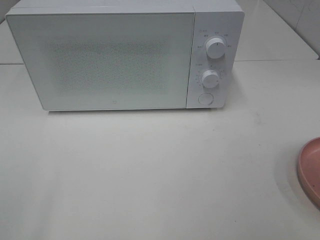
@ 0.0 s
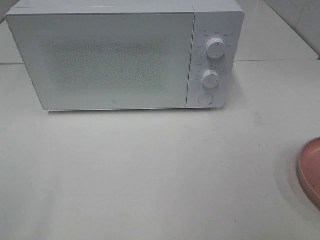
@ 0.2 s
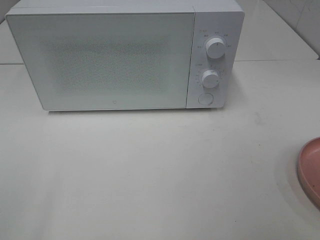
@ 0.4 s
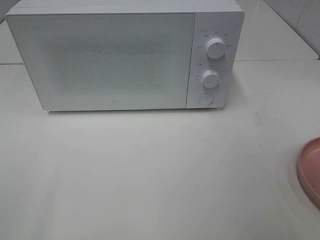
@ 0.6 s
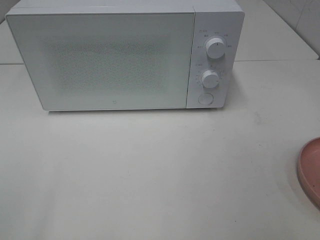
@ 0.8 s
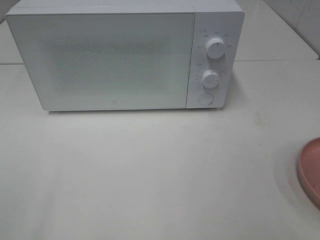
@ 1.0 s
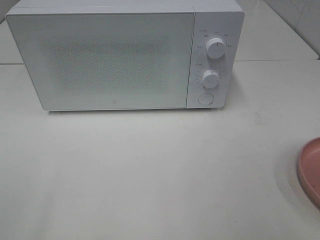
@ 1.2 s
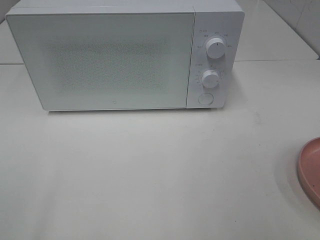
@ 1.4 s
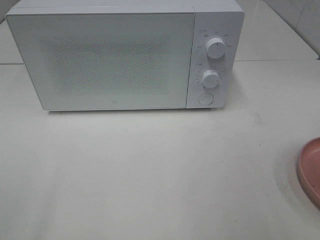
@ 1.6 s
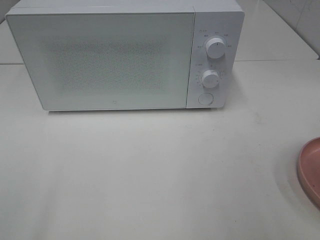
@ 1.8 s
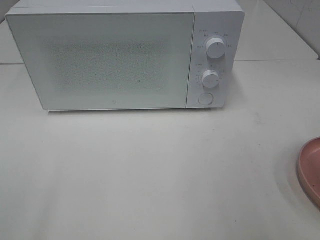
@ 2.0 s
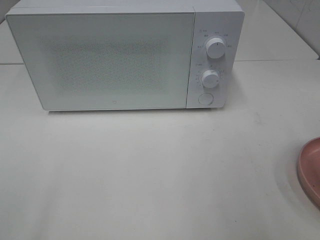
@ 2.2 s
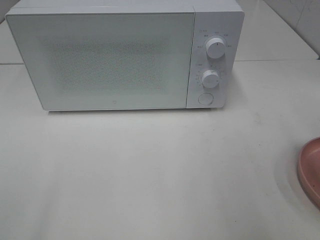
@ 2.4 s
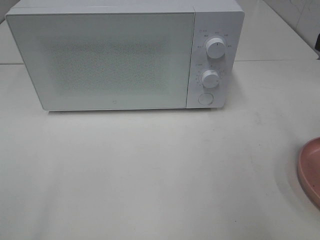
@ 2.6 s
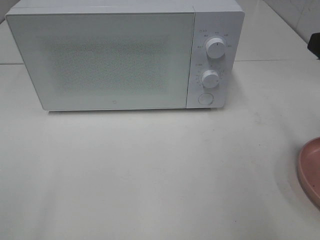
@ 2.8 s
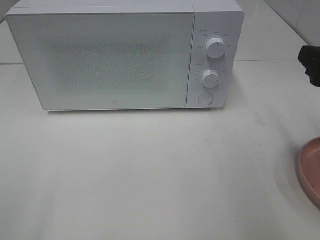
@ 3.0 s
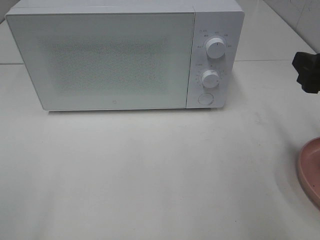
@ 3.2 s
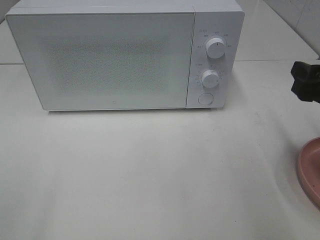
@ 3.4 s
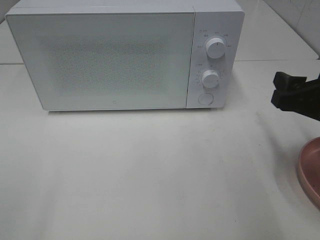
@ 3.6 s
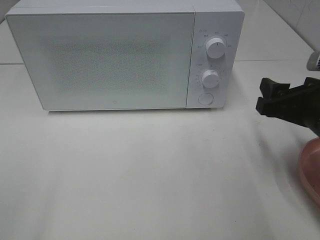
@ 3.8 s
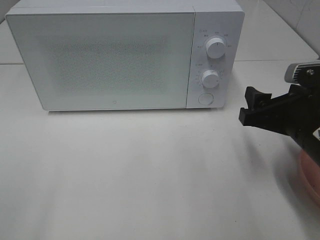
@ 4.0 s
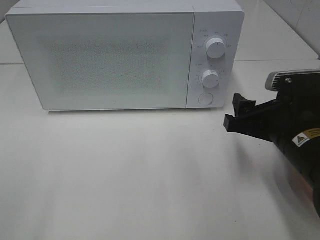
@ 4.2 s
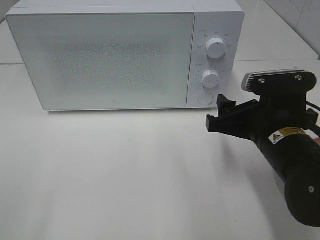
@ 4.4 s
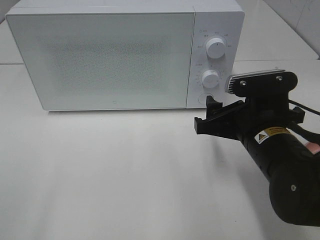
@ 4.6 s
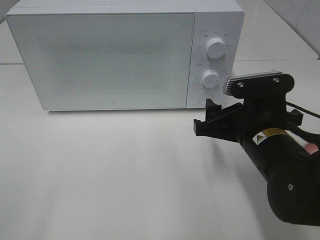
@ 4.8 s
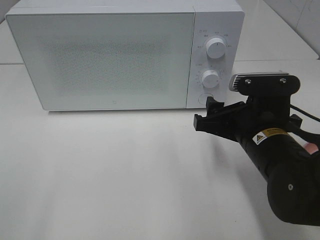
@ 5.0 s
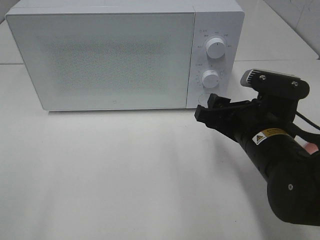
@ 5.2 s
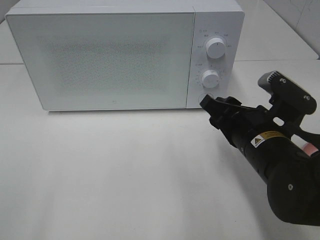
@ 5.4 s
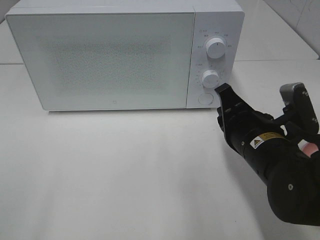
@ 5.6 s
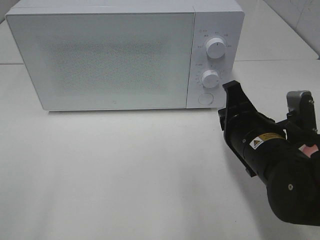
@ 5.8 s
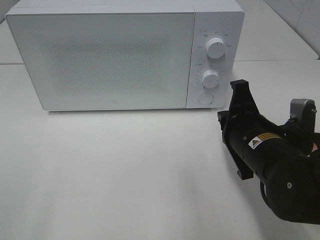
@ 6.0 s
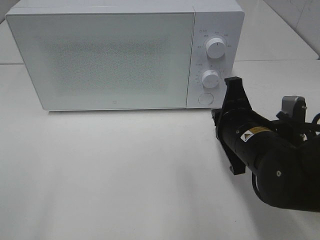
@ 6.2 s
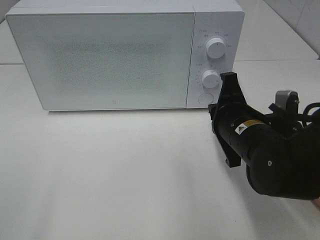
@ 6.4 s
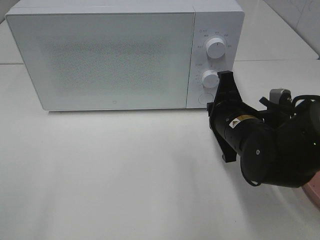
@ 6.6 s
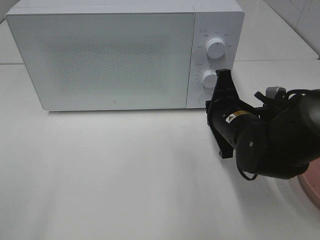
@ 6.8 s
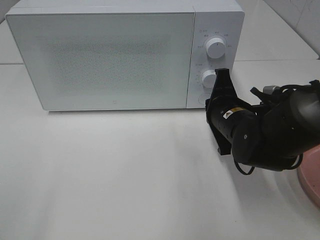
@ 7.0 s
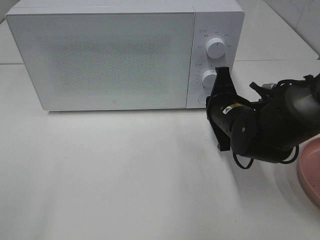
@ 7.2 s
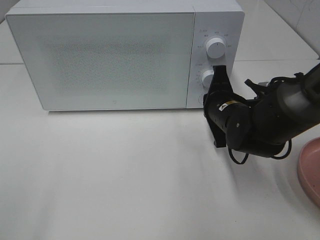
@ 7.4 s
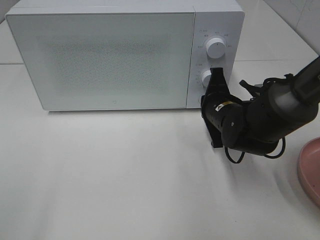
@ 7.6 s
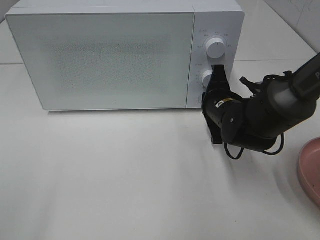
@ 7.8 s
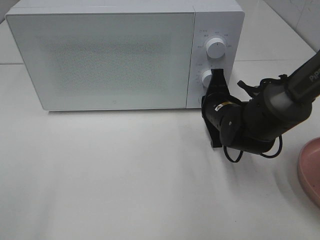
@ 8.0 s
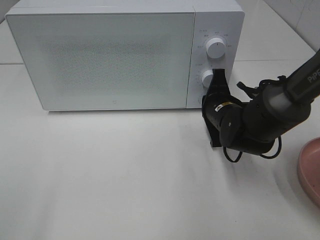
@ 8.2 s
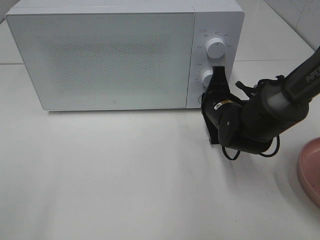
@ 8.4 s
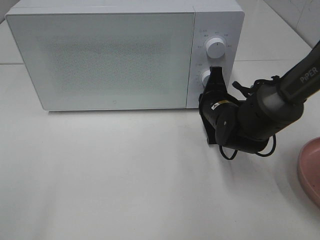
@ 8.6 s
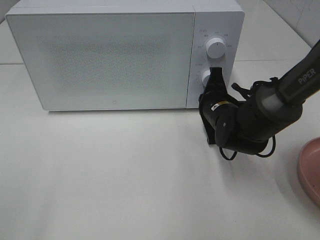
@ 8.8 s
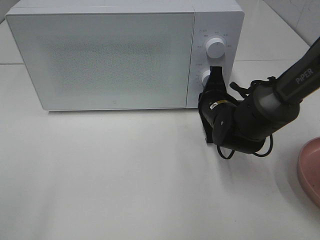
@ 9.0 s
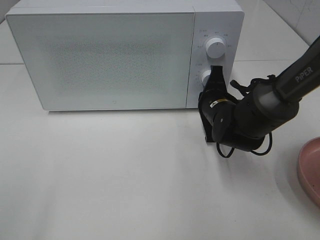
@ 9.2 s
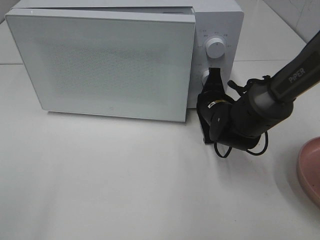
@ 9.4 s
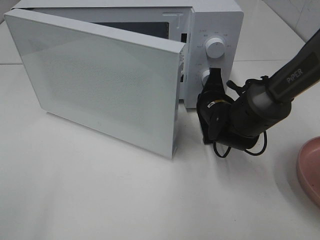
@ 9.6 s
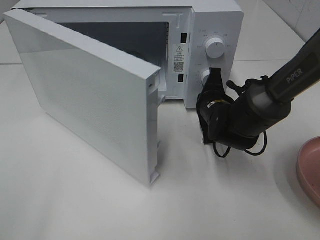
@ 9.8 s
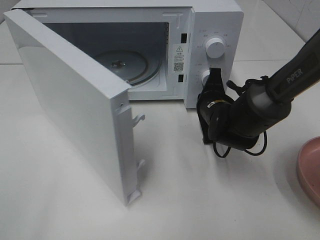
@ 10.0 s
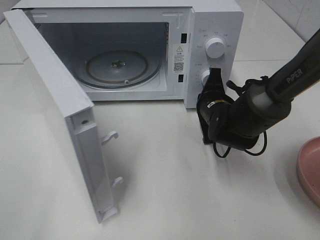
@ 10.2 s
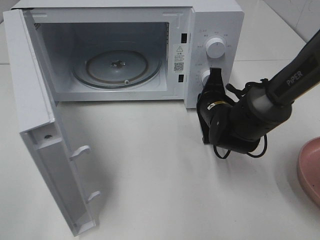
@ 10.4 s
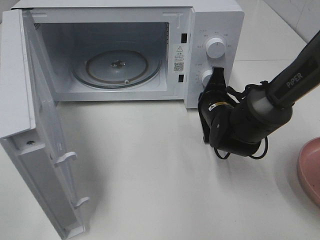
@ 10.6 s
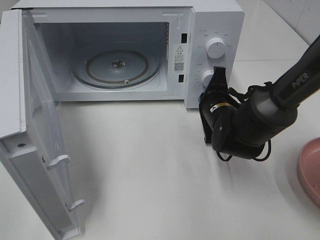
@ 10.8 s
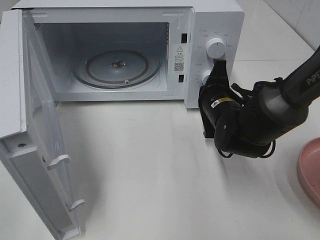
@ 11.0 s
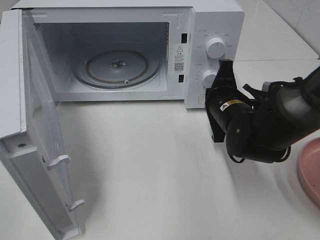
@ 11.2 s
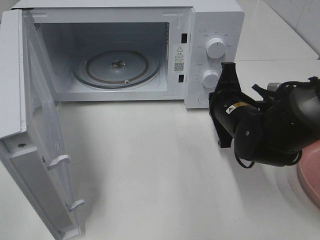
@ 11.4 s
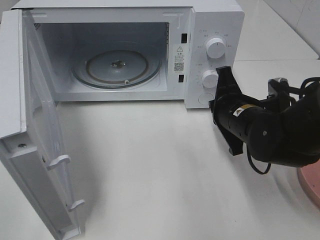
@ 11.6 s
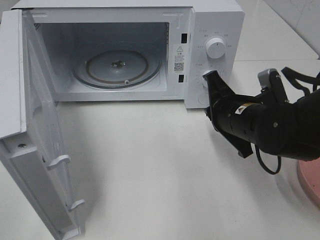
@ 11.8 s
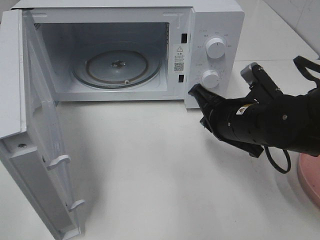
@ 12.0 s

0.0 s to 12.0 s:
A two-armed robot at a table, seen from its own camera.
Task of the whole recording: Heat the burger.
Step, 0.0 to 10.8 s: Right hand: press the switch.
1.6 to 3.0 s: The right gripper goes approximately 15 cm forward and downward.
3.0 to 4.4 s: The right gripper moves to the left and downward, some 15 cm.
4.4 to 6.0 s: The right gripper closes up.
6.0 to 7.6 s: The right gripper goes approximately 10 cm forward.
7.6 to 9.0 s: The grippers make only small movements.
10.4 to 12.0 s: The right gripper travels backward and upward by roughly 10 cm.

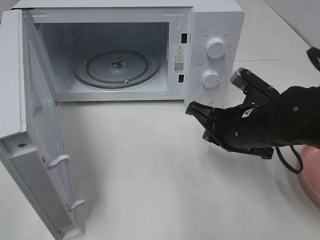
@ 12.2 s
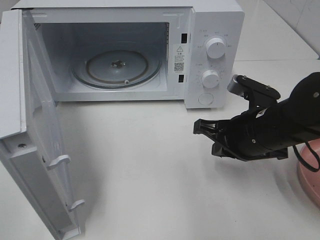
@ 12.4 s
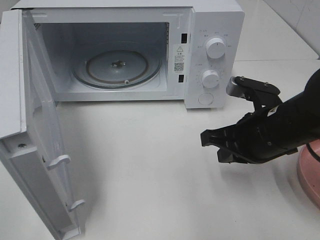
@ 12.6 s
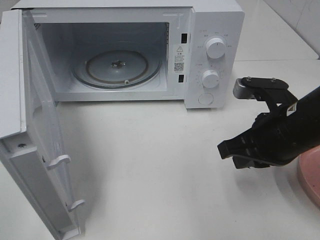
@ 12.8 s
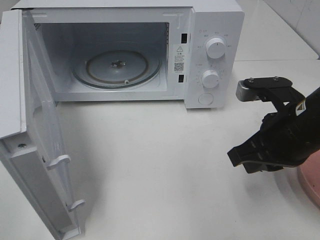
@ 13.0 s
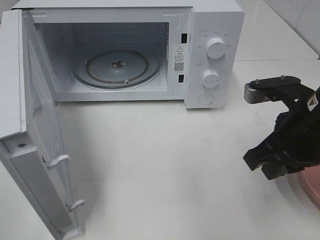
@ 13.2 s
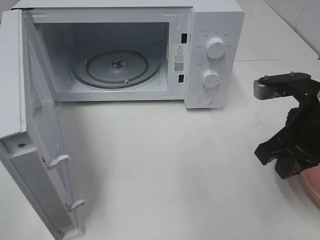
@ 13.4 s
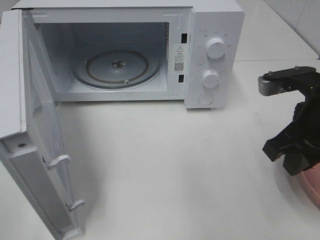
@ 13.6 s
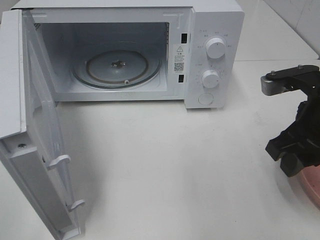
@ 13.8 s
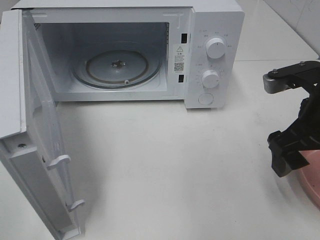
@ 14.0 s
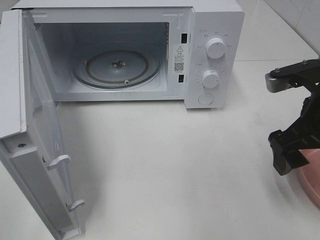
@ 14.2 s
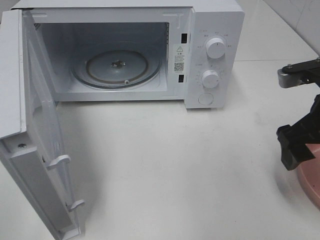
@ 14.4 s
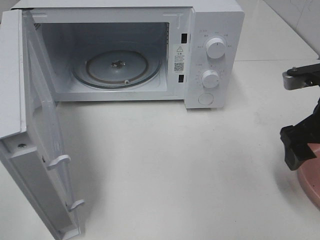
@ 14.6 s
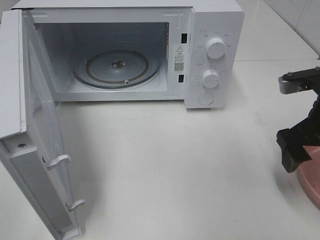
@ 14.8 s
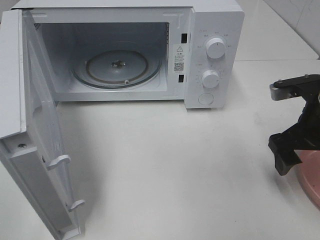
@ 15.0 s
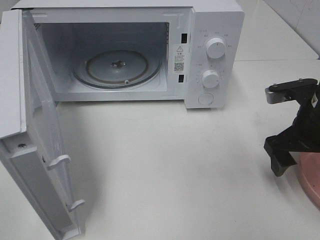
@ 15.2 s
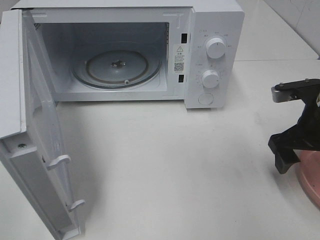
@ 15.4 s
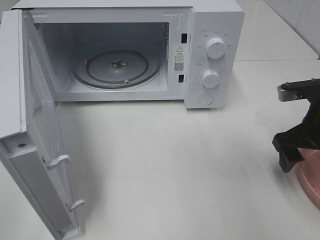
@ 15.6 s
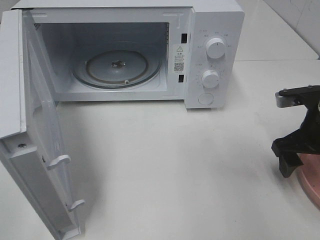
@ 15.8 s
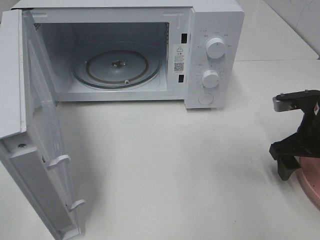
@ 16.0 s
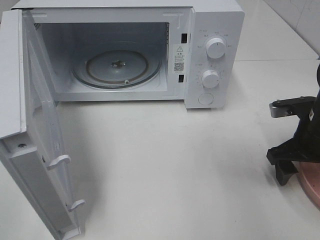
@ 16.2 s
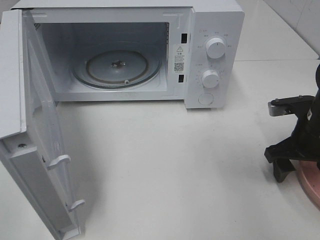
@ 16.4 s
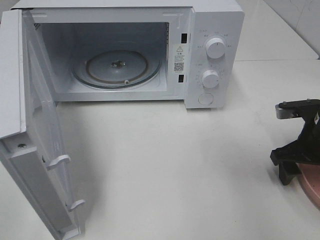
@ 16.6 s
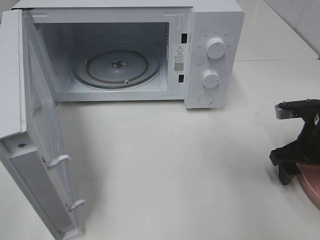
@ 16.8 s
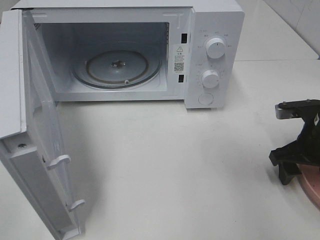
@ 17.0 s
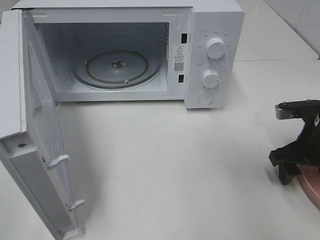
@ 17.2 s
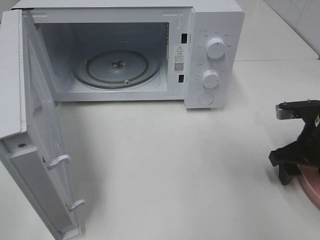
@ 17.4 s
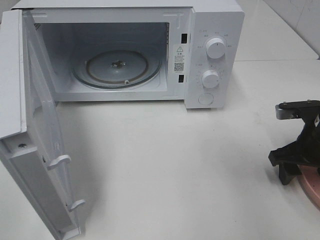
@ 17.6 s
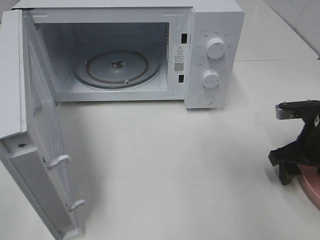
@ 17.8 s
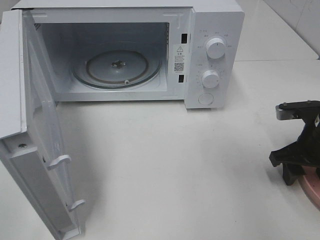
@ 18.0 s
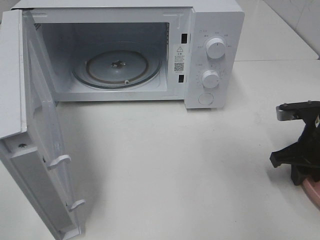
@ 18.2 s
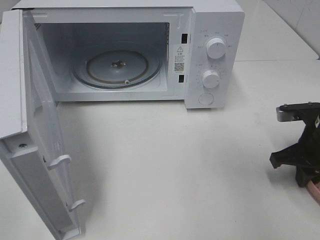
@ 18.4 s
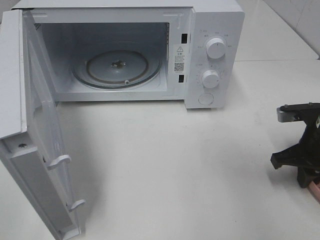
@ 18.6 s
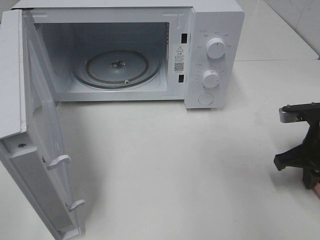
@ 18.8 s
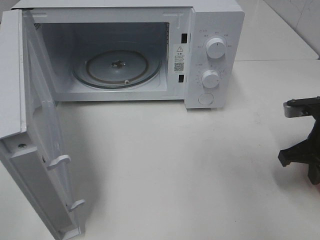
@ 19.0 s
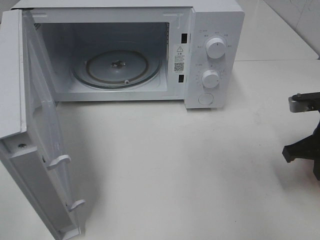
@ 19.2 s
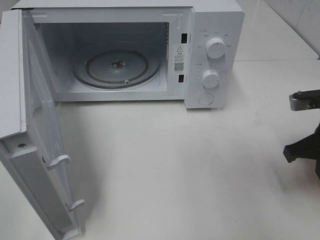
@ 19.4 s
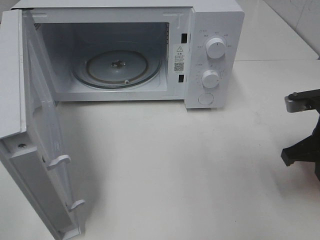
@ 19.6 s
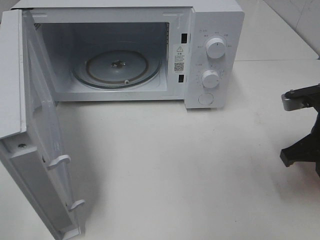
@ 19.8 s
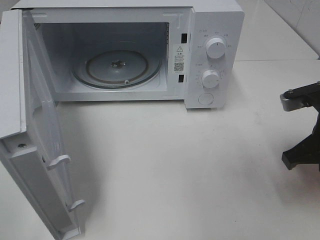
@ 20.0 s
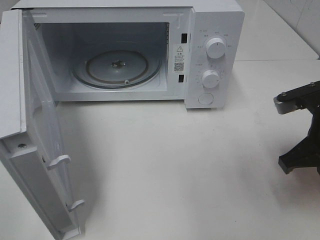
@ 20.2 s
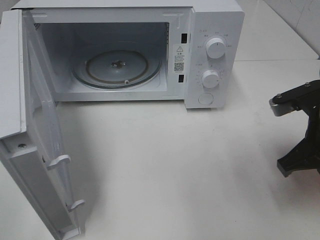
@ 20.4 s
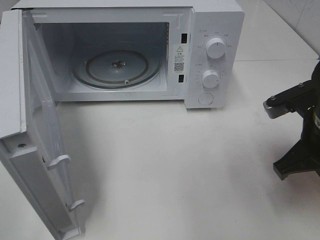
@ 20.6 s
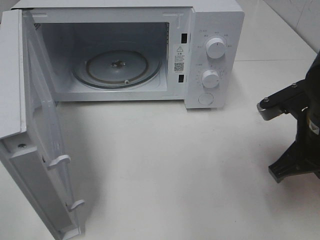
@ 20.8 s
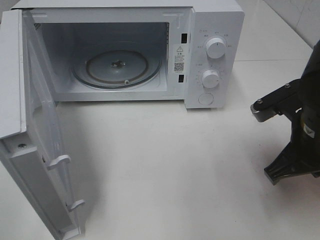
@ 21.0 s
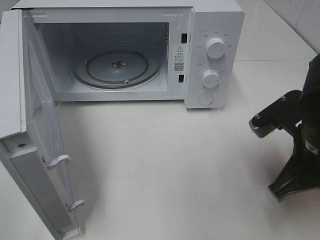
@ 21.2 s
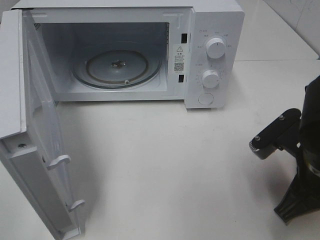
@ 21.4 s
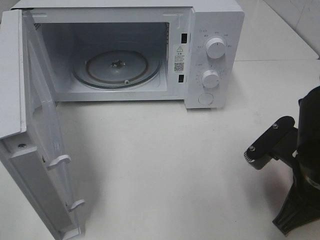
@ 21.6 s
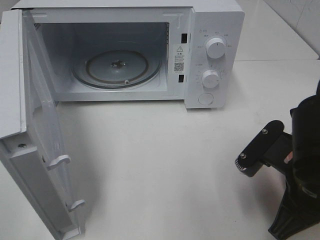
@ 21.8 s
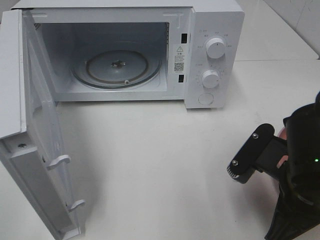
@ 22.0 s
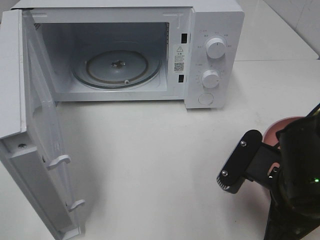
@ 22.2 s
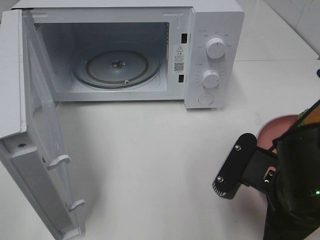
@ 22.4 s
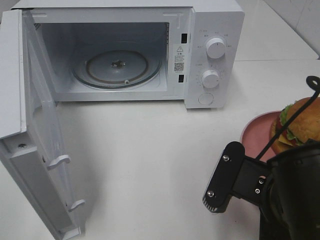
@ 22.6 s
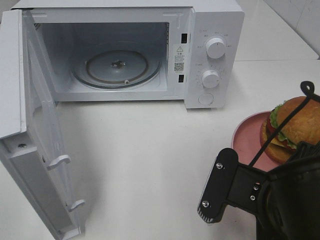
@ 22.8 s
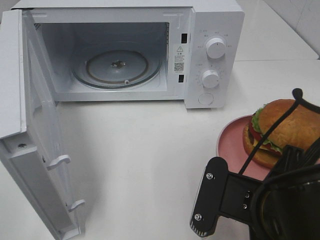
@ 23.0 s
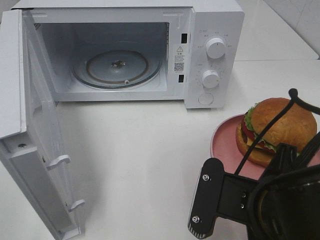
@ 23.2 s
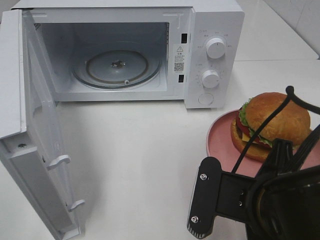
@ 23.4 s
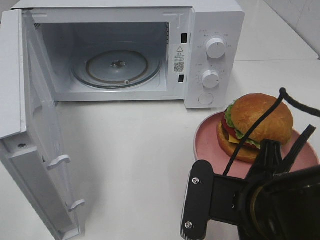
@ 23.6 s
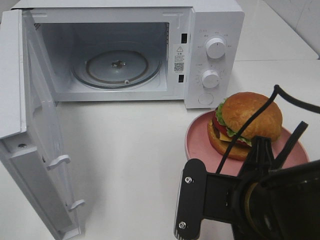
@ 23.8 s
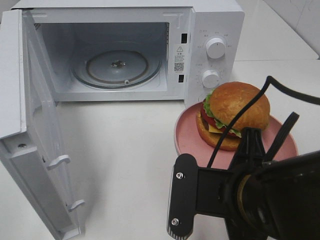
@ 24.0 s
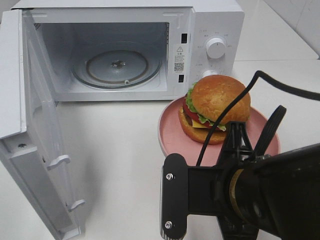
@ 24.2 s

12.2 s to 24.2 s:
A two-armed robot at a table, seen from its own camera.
Task of the whole recording: Heat the burger.
Step, 12.2 to 19.0 s: Right hand: grab the plate with the hamburger.
12.2 to 13.8 s: The right gripper heads upward and to the right, covering about 10 cm, and opens.
13.8 to 15.2 s: The right gripper heads downward, covering some 5 cm, and opens up.
15.2 to 16.6 s: The right gripper shifts some 5 cm downward.
16.6 to 18.2 s: The right gripper closes its fingers.
18.2 to 19.8 s: The right gripper heads upward, covering some 5 cm.
19.8 to 21.2 s: The right gripper moves to the left, roughly 5 cm.
21.2 to 22.6 s: The right gripper shifts approximately 10 cm backward and to the left.
